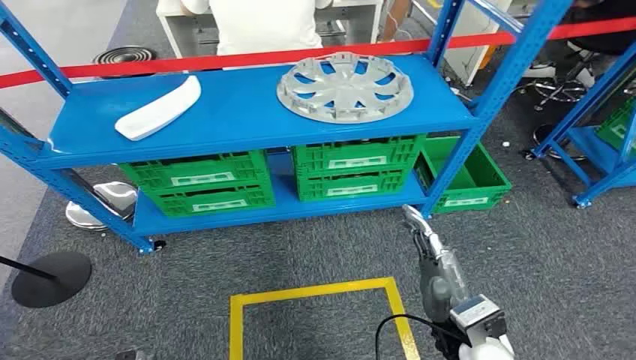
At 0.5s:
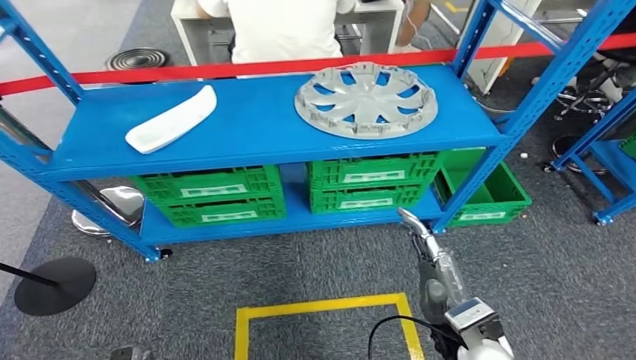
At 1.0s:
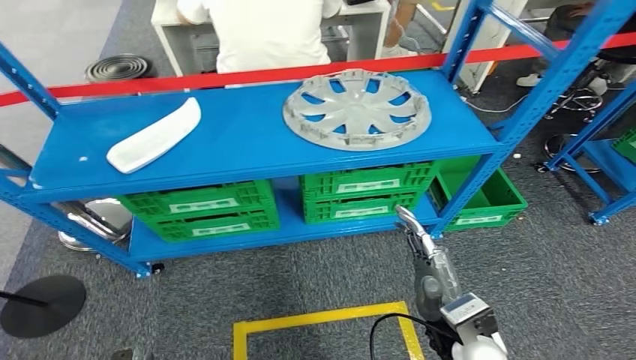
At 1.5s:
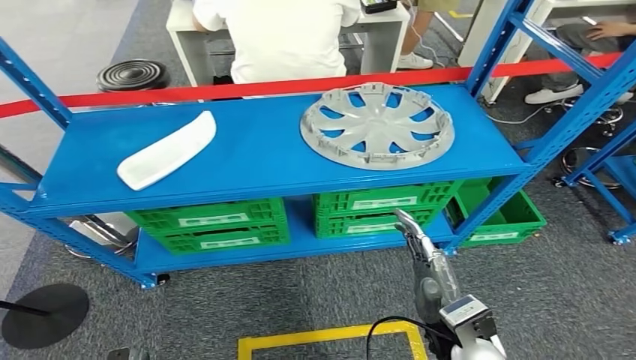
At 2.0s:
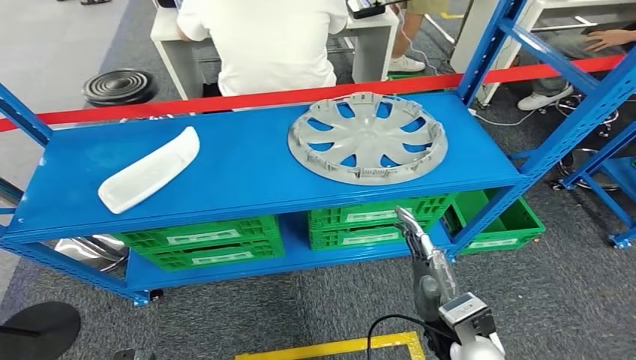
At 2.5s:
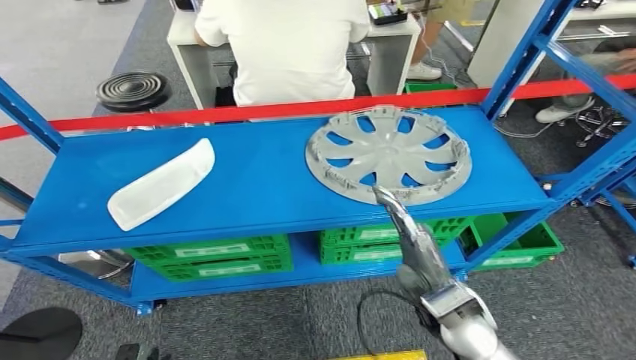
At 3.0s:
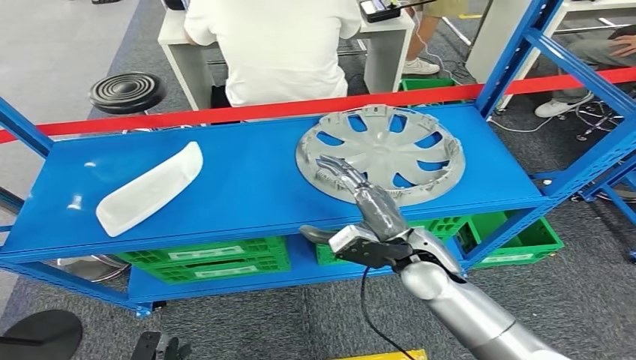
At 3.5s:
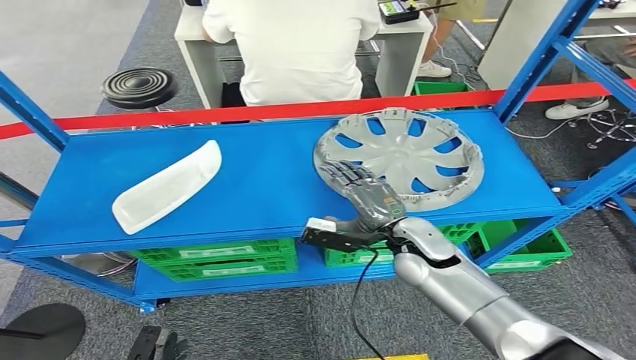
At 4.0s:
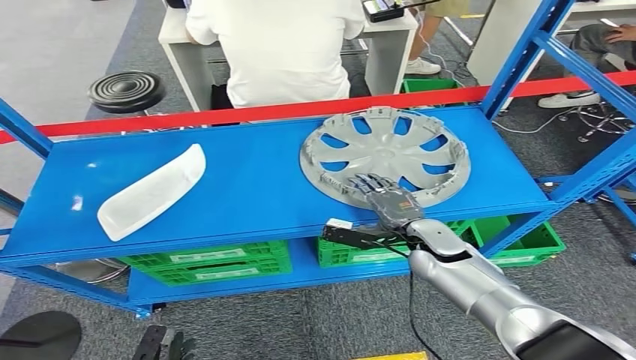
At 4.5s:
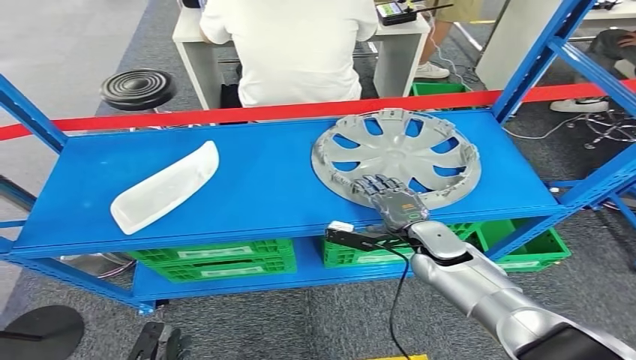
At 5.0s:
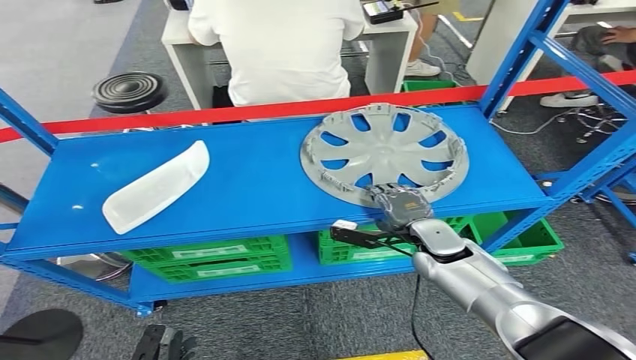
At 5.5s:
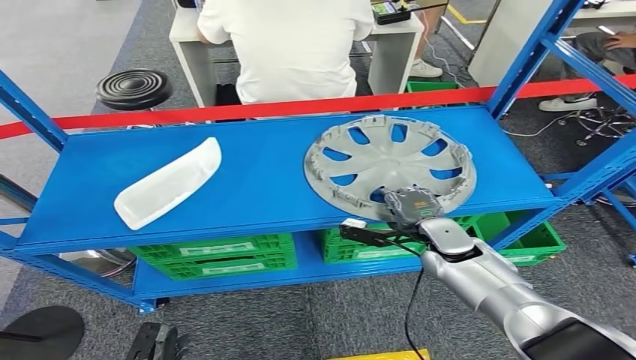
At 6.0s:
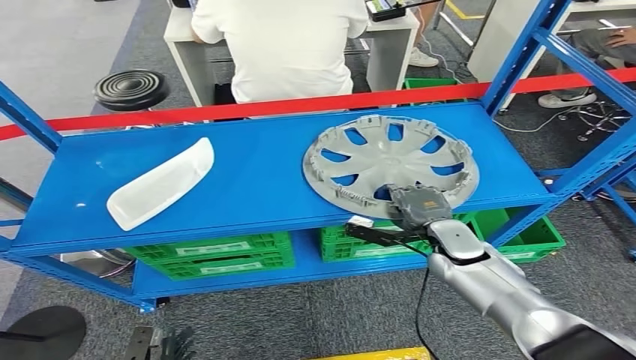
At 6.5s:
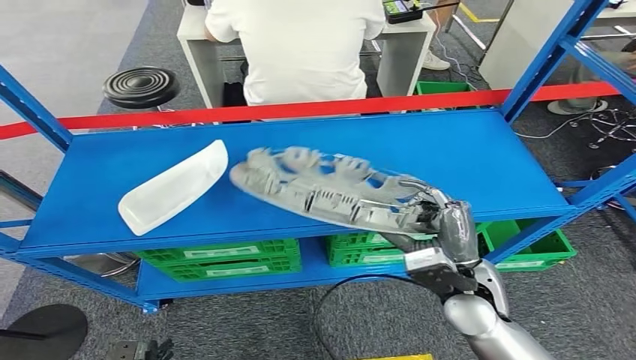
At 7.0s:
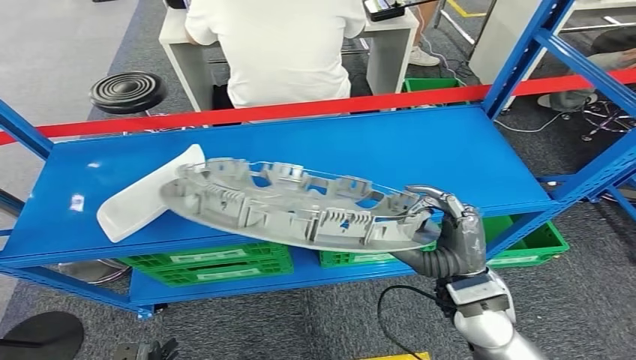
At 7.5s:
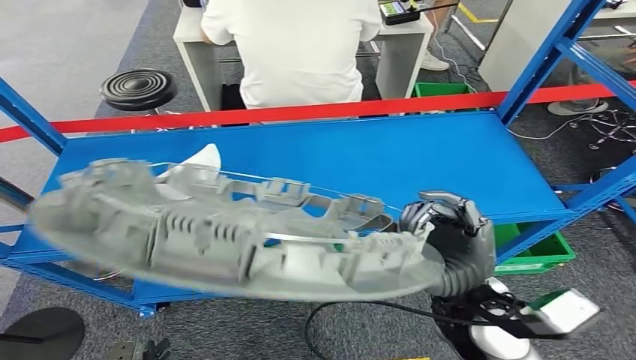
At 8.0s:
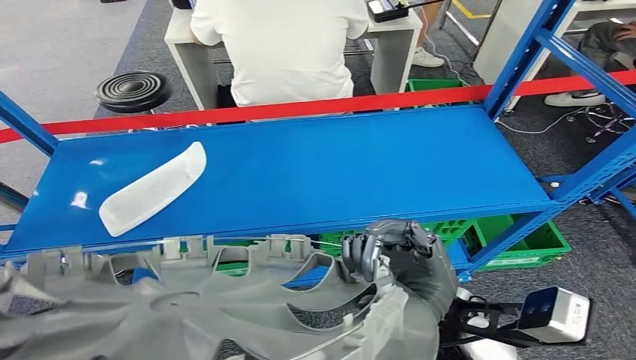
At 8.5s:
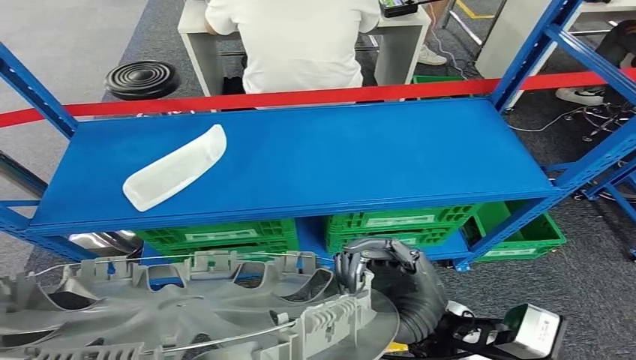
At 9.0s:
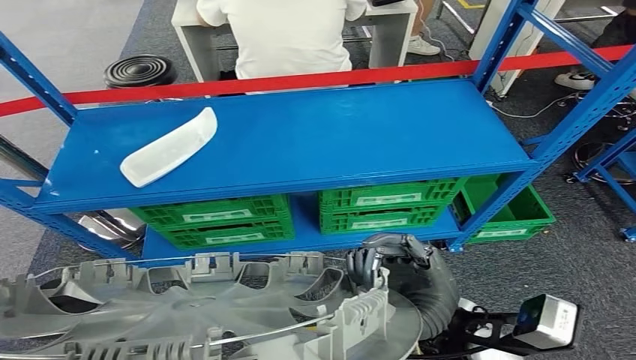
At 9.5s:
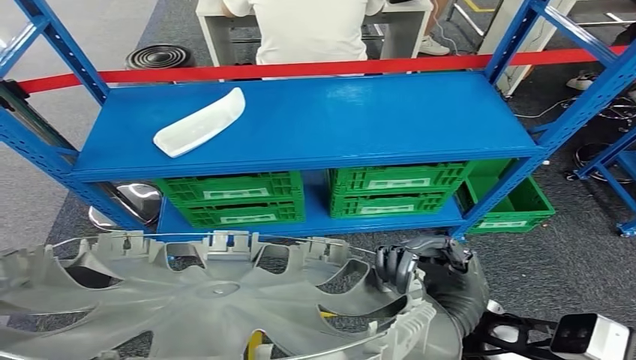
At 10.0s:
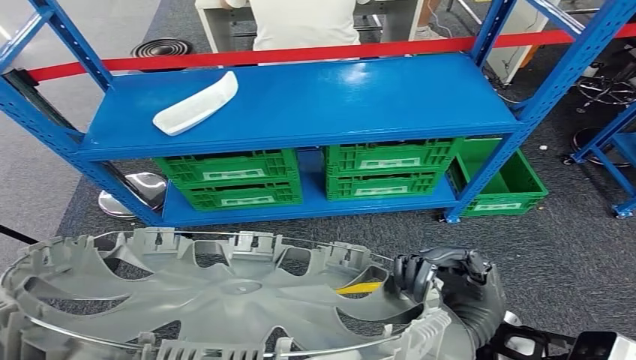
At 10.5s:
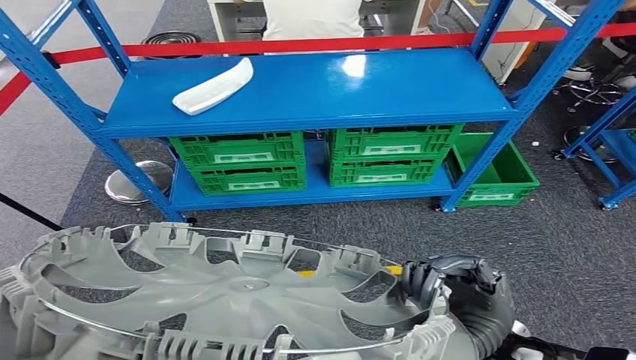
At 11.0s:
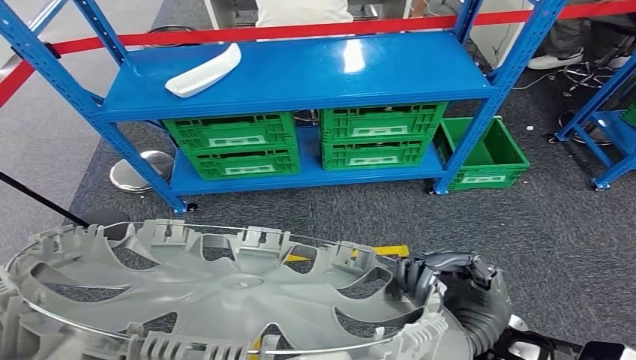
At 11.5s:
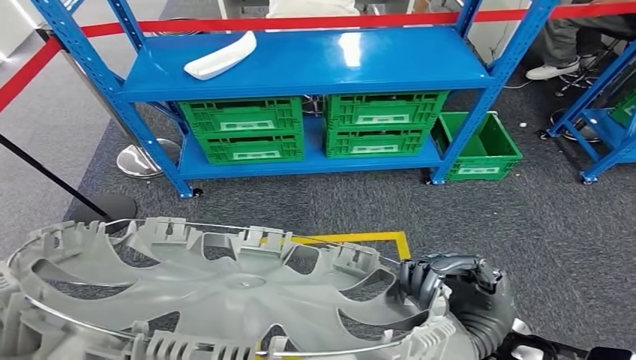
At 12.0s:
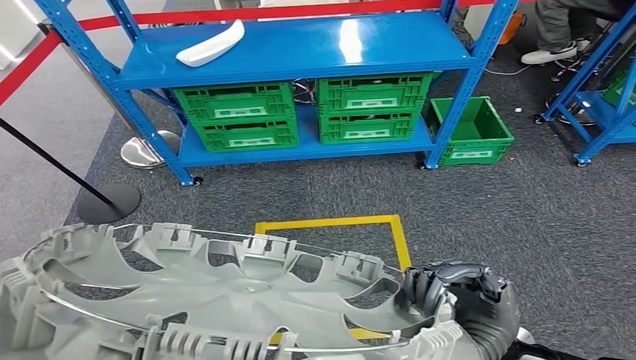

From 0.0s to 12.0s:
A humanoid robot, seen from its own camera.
Step, from 0.0s to 7.5s: Pick up the small component from the shelf.

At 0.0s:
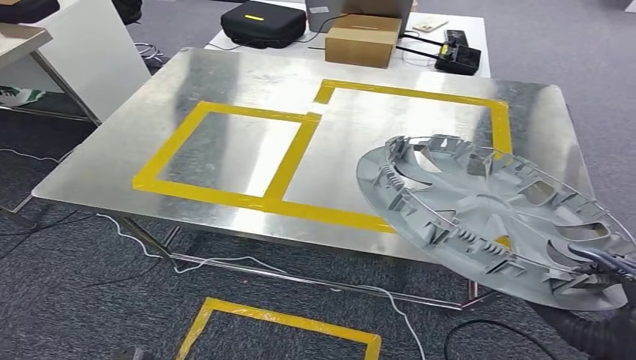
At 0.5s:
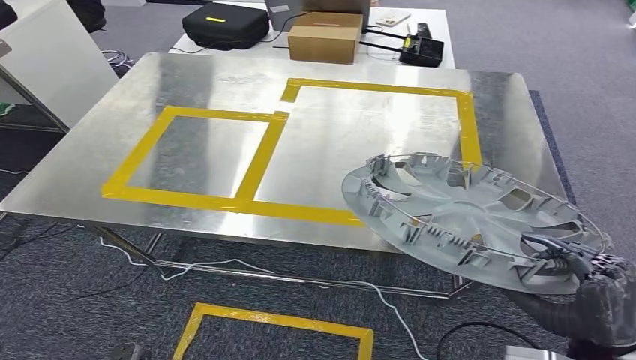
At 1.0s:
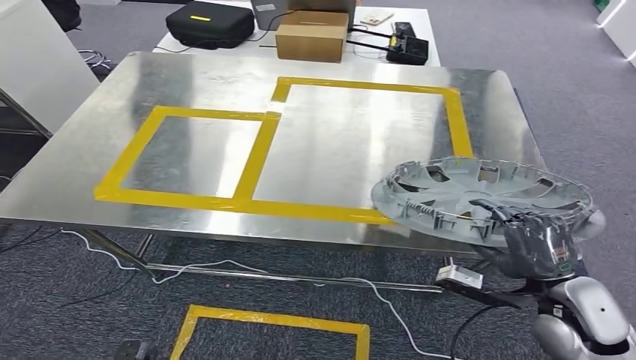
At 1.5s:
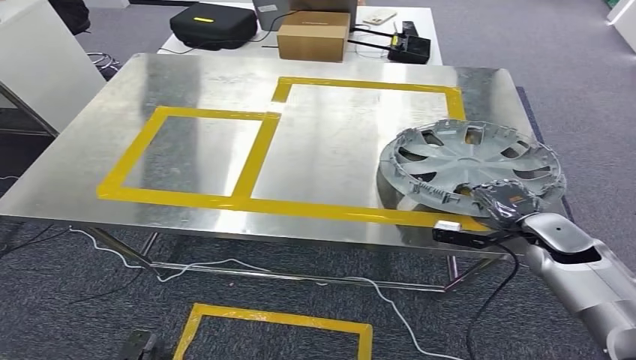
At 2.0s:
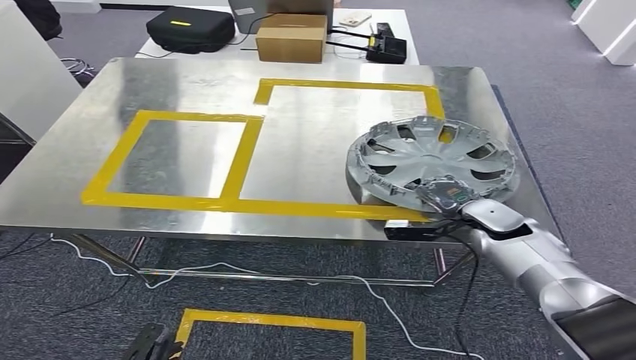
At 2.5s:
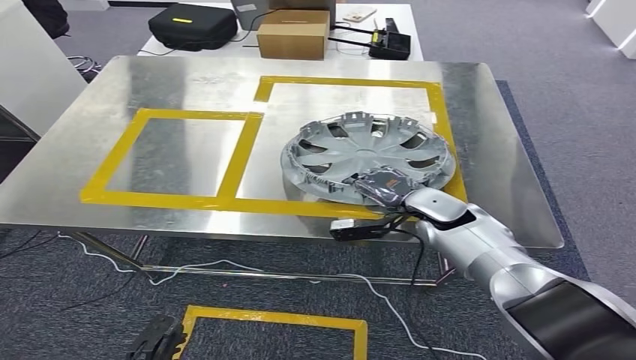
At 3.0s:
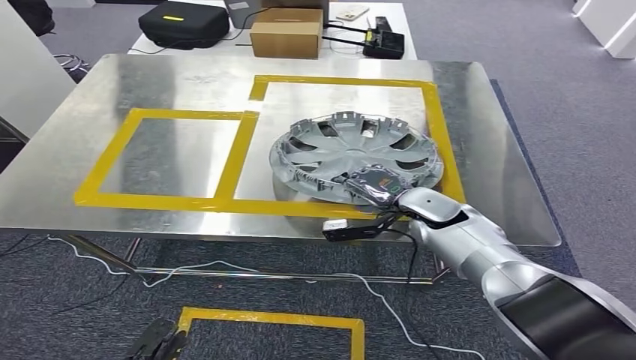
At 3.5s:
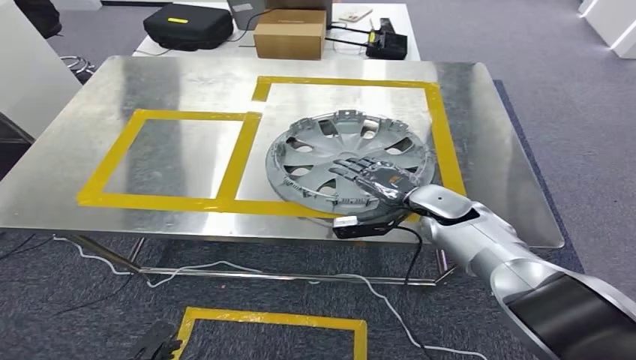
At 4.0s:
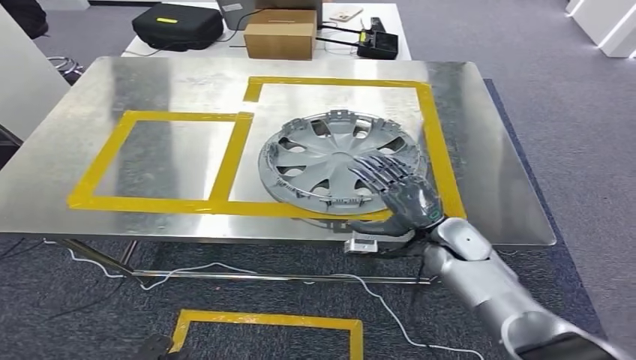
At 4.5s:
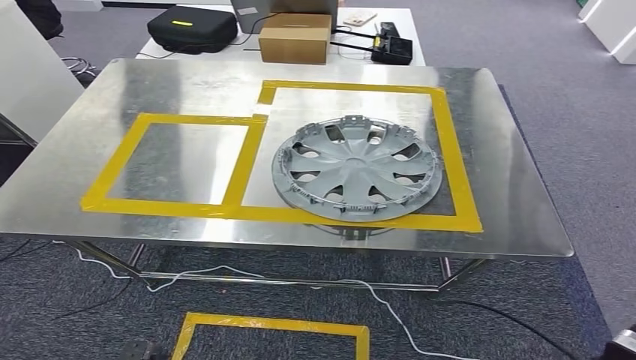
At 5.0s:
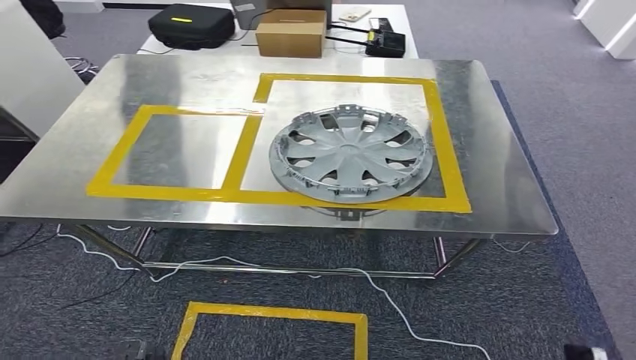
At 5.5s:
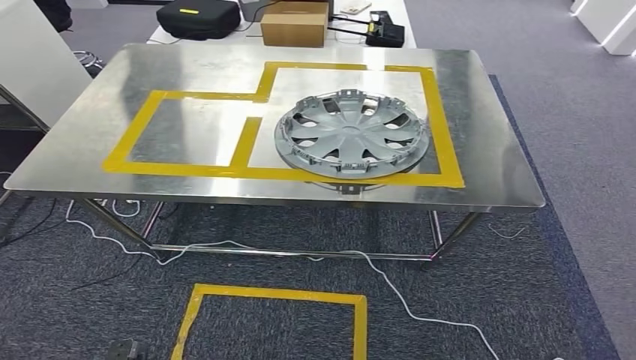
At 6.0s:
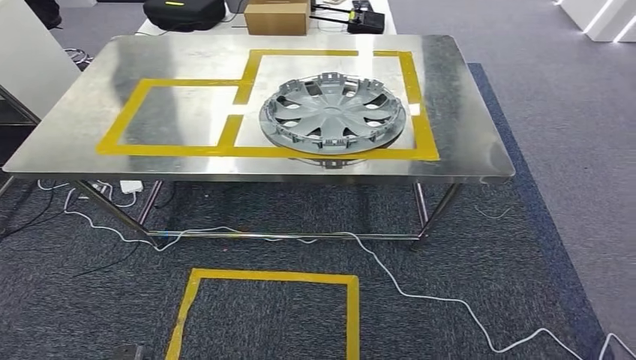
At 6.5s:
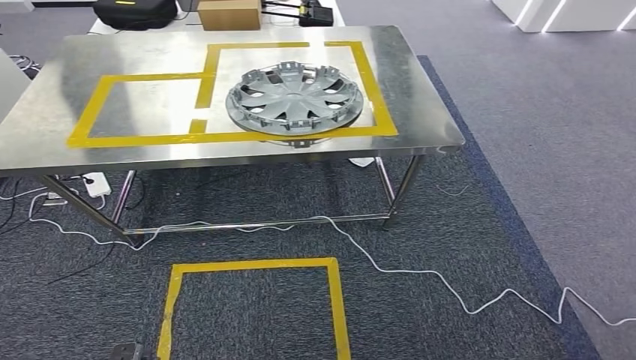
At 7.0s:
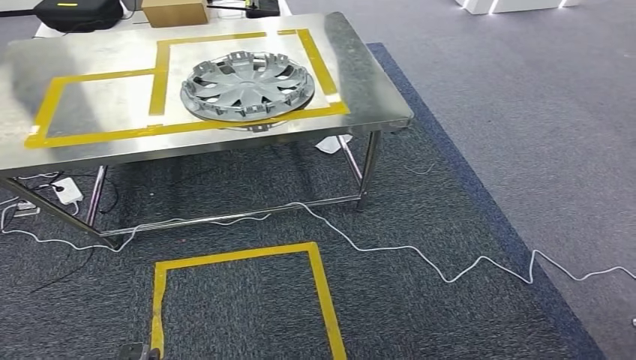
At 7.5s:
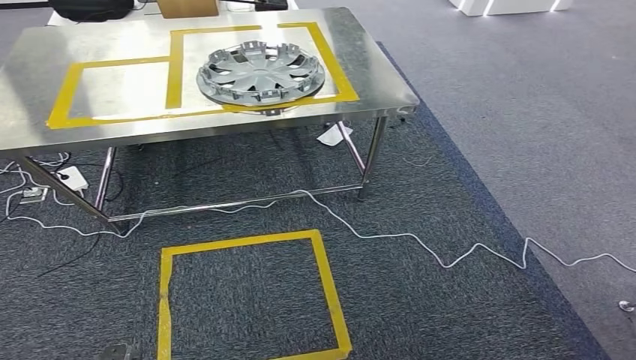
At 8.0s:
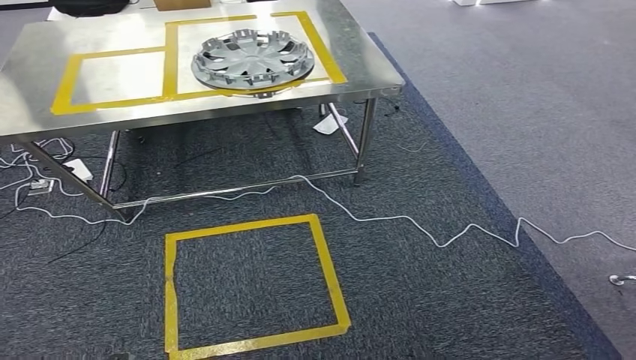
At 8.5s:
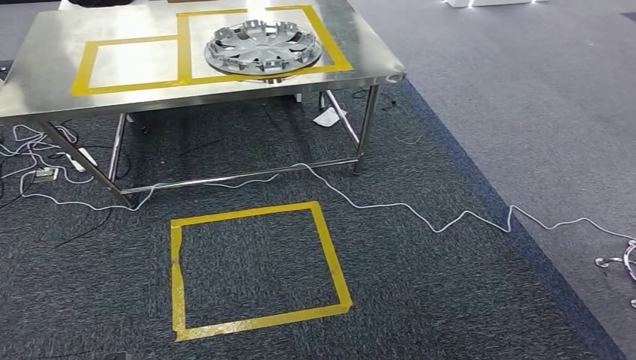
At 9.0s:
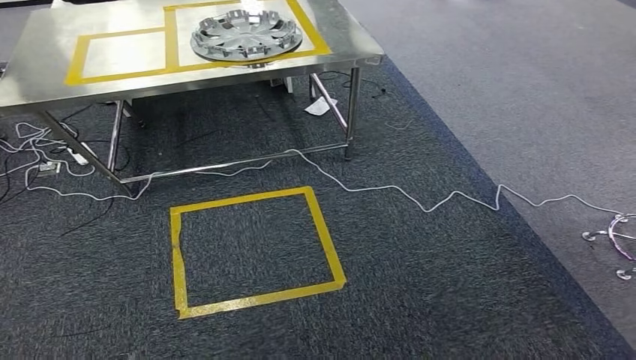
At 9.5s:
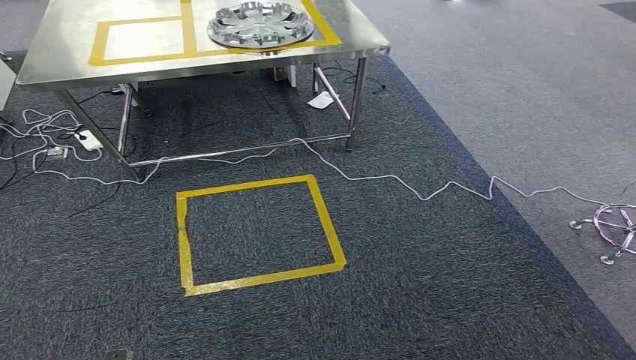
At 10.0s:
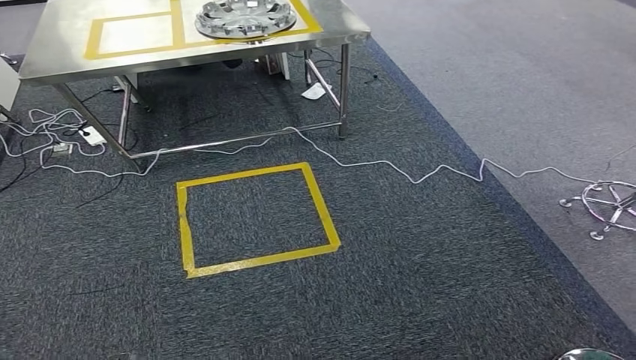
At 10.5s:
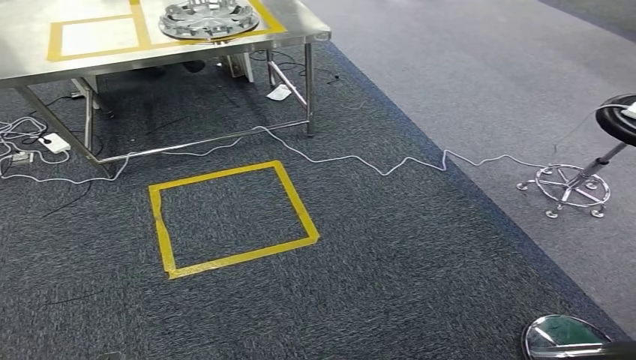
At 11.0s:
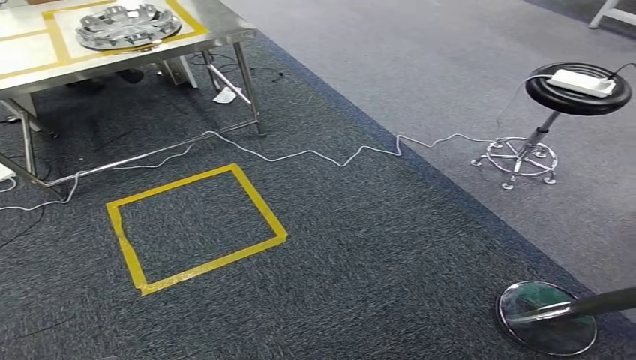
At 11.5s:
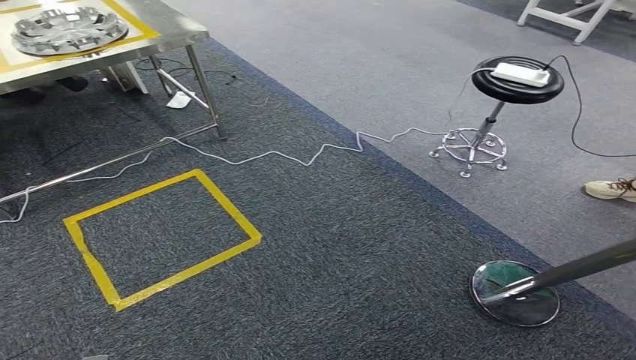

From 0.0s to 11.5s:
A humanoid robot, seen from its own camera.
Step, from 1.0s to 8.0s: Insert the small component into the corresponding slot on the workbench.
